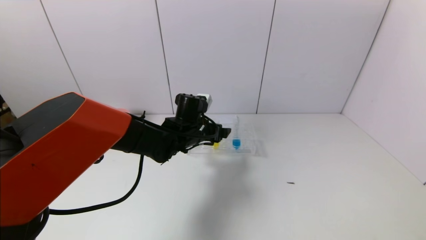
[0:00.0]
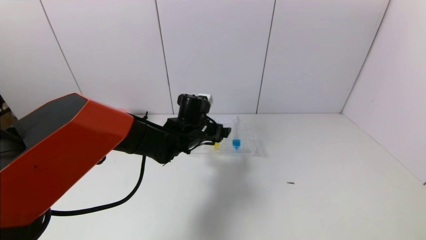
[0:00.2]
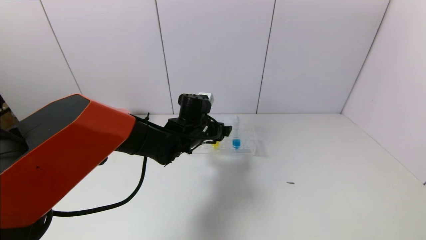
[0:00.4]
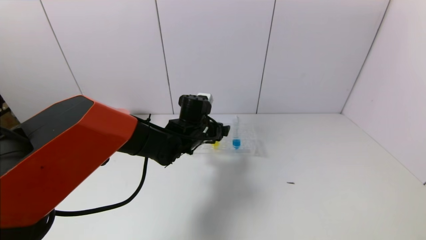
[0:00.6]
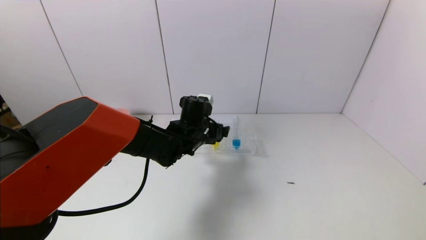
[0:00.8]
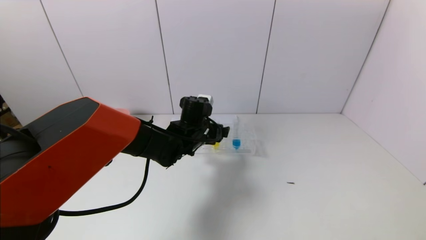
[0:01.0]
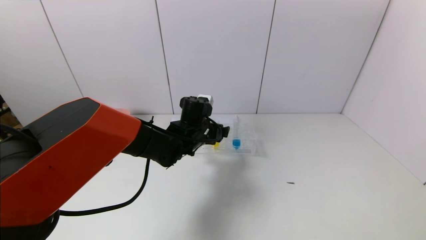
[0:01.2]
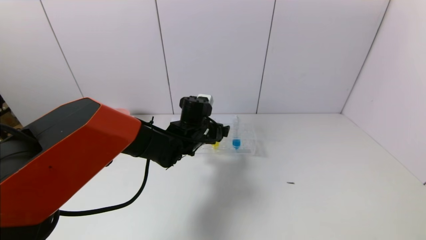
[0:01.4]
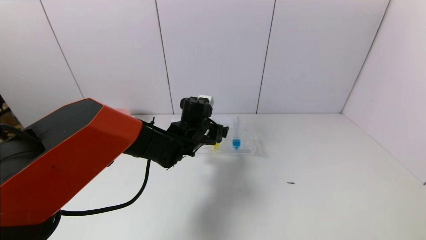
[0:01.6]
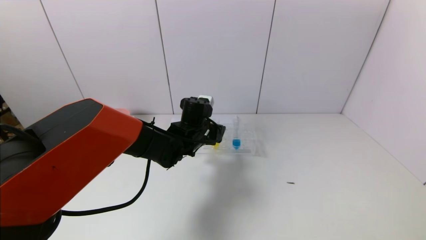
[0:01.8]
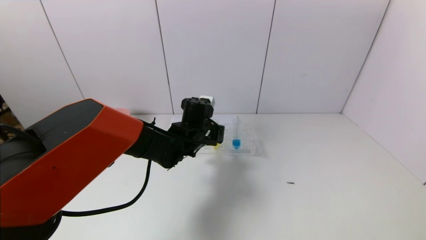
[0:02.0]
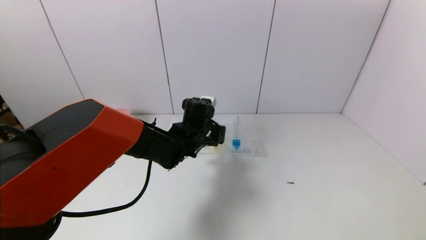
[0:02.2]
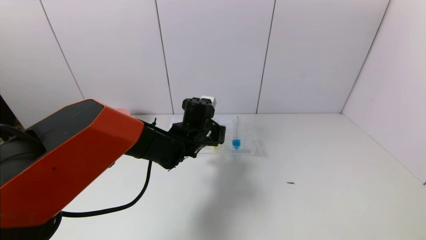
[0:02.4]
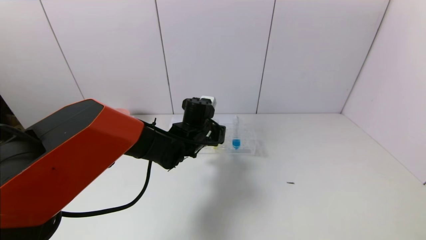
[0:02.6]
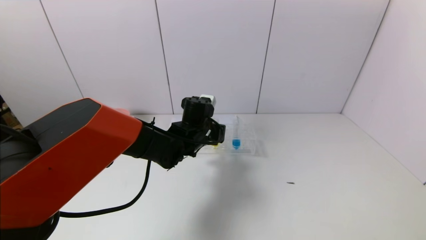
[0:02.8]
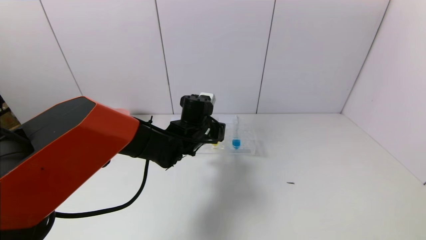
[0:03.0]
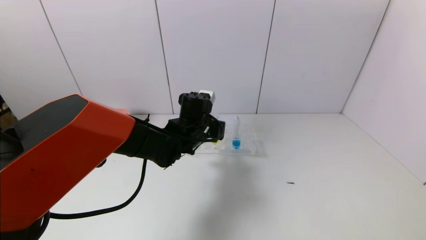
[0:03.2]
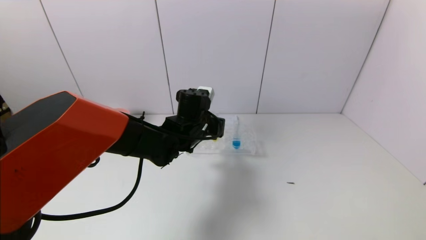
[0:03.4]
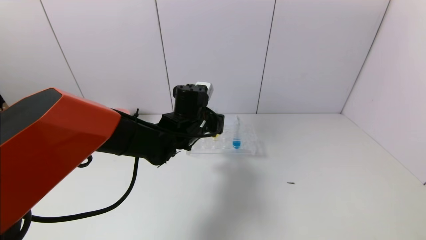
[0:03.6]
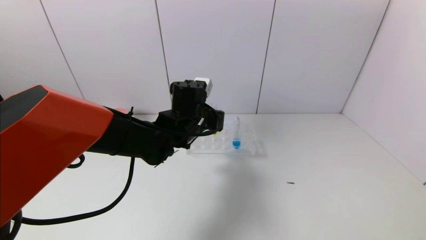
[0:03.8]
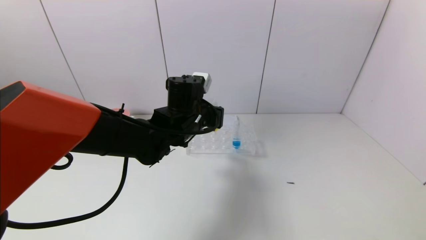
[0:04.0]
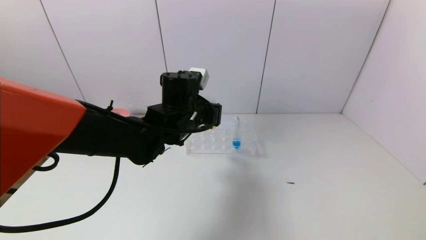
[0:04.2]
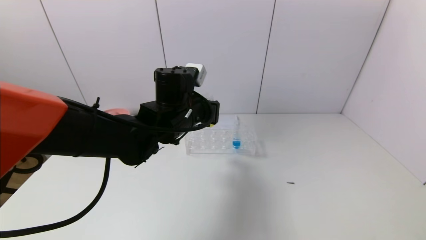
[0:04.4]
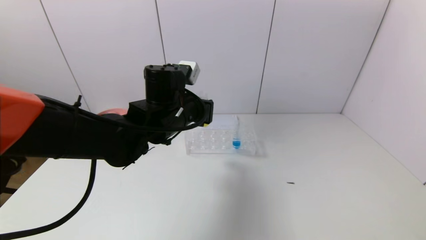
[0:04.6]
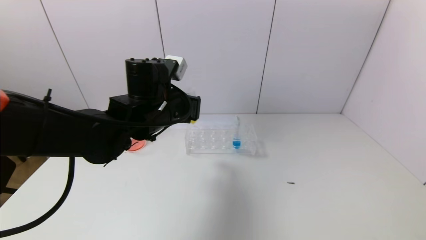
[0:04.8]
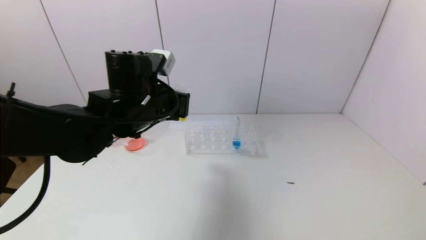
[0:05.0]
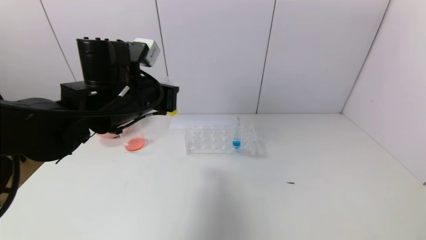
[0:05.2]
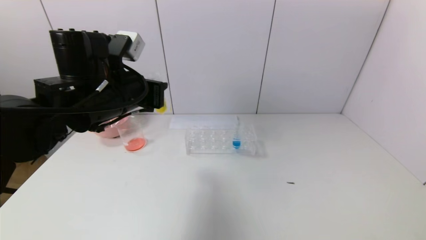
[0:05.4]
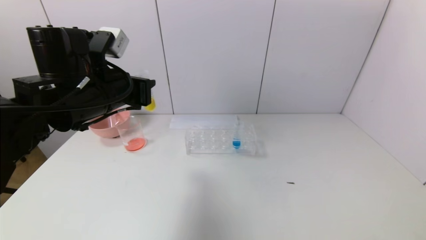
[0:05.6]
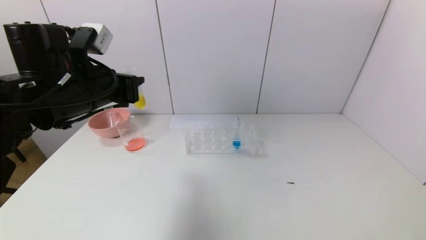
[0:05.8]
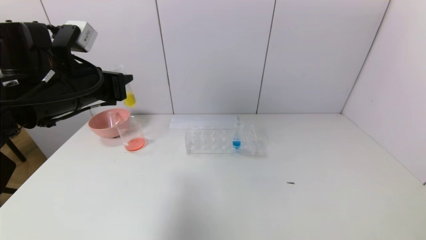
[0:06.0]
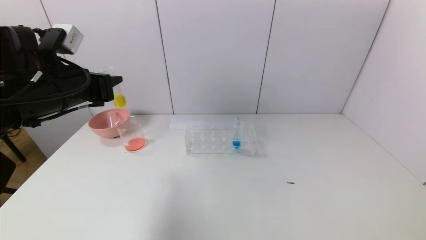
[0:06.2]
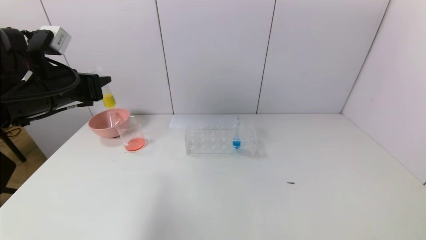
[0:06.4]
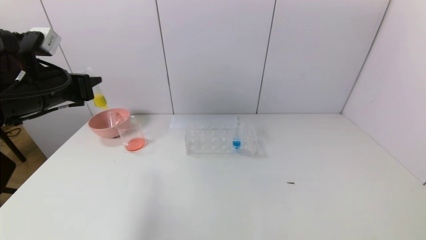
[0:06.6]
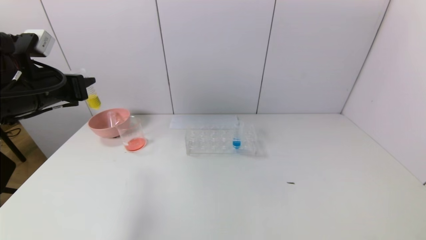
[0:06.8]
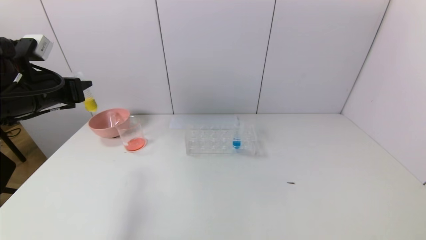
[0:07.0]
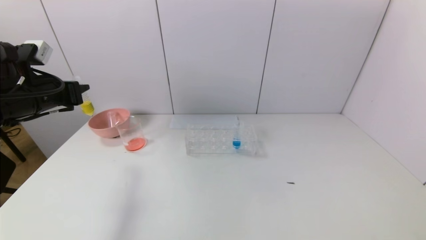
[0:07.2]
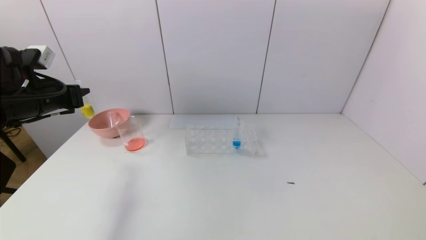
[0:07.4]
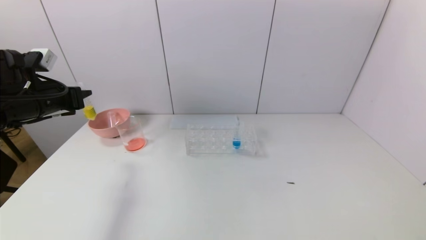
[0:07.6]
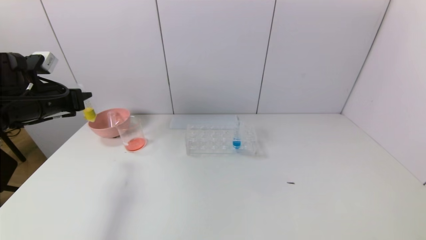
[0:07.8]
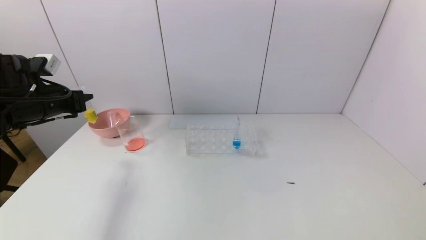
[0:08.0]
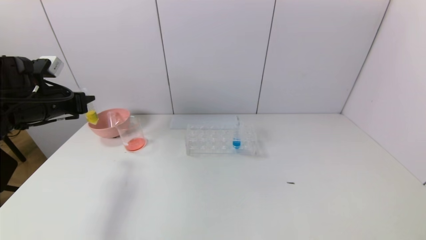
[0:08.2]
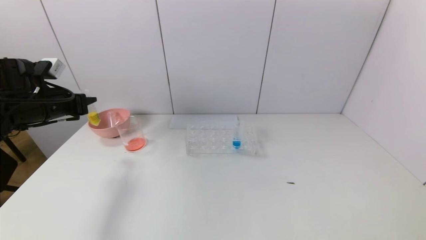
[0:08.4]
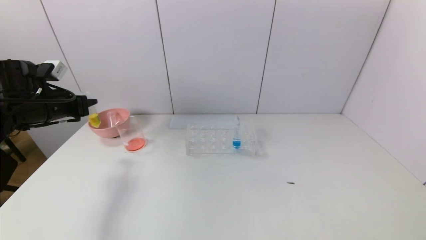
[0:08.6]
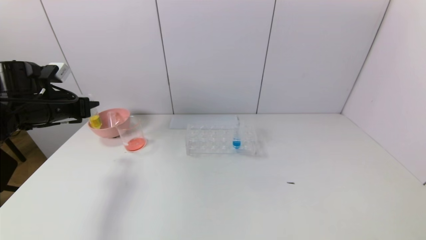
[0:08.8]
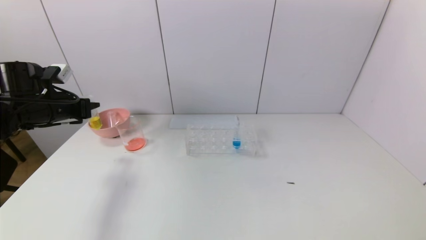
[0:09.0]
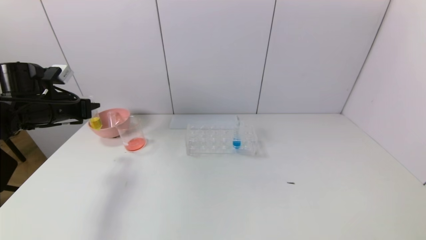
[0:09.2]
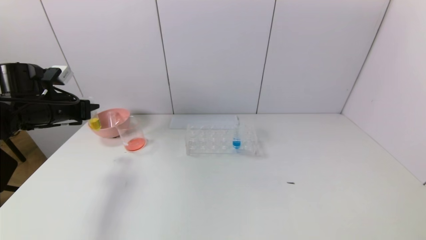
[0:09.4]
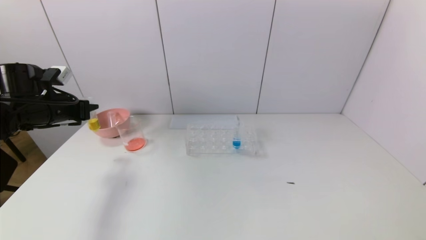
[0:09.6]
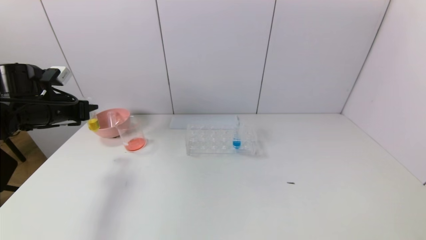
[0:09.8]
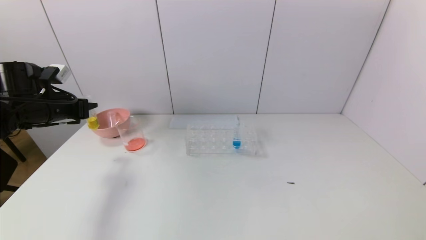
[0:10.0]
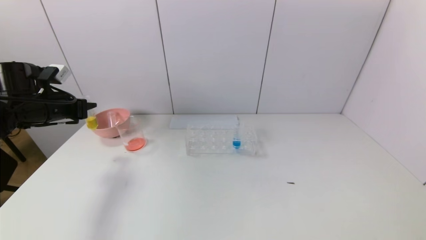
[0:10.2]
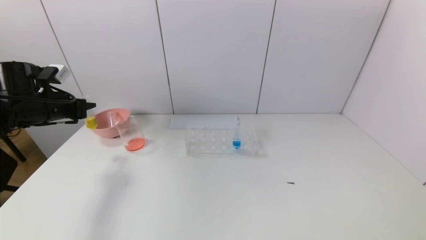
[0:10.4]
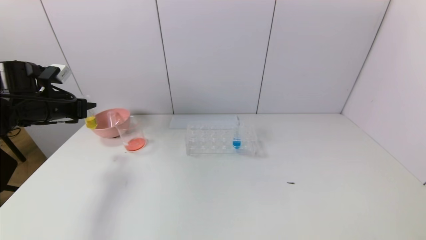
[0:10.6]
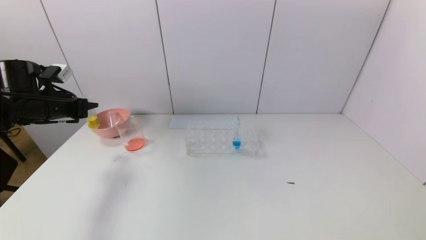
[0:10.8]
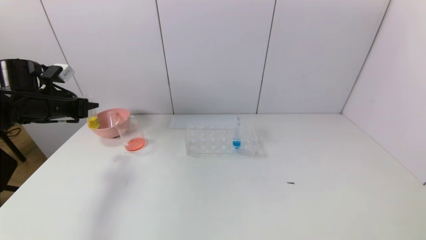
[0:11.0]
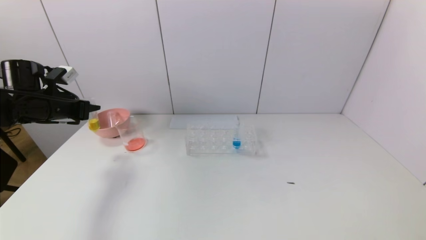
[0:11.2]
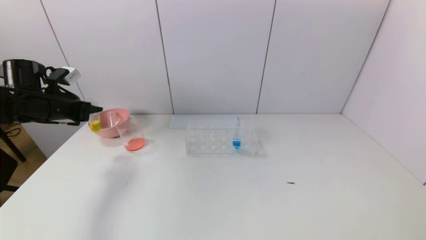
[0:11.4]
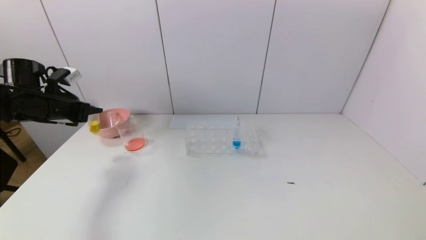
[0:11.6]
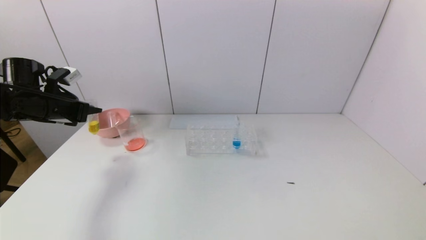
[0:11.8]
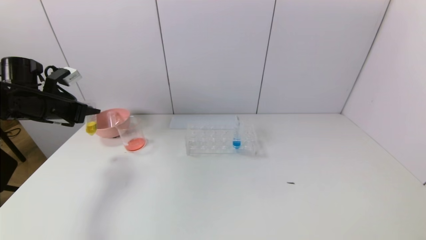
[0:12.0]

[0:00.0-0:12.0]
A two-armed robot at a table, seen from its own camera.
Task of the whole recording: pick up the test tube with yellow pigment and the test tube with red pigment by grippers and pour them into the beaker.
Step, 0:00.0 to 0:02.4: Grasp the yellow reagent with the left gripper.
0:00.0 to 0:01.6: The grippers stay close to where they were, moving slightly.
0:01.6 to 0:03.0: The left gripper closes.
0:03.0 to 0:04.4: The left gripper travels upward by some 10 cm.
0:04.4 to 0:06.0: The left gripper travels to the left and upward by about 20 cm.
0:06.0 to 0:07.6: The left gripper travels to the left by approximately 10 cm.
0:07.6 to 0:10.4: The grippers move only a little.
0:10.4 to 0:12.0: The grippers move only a little.

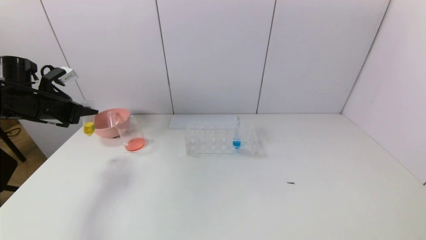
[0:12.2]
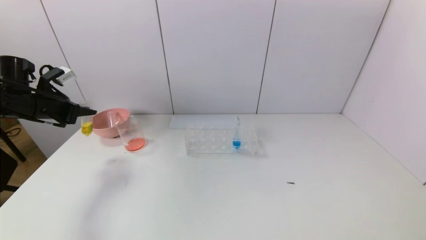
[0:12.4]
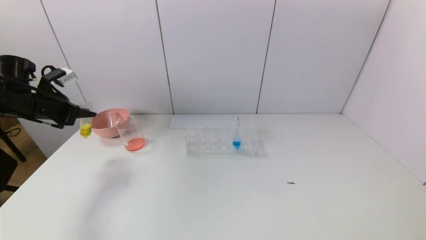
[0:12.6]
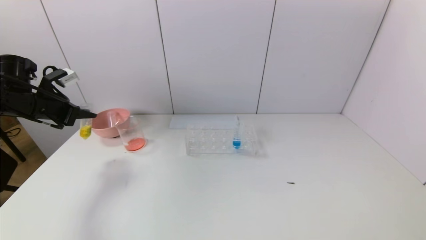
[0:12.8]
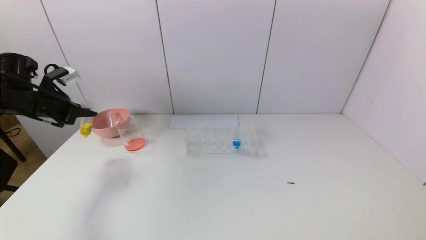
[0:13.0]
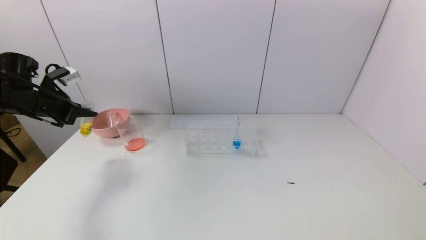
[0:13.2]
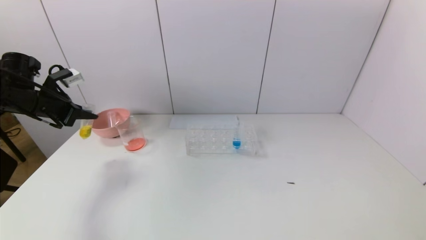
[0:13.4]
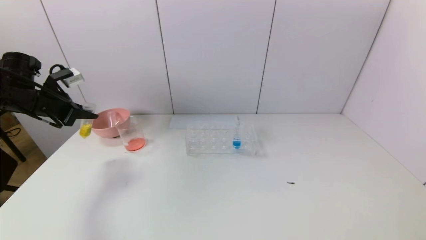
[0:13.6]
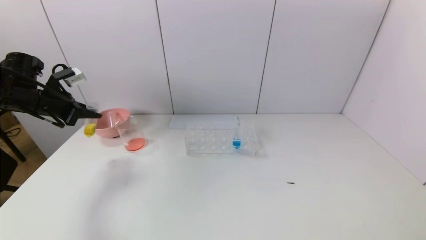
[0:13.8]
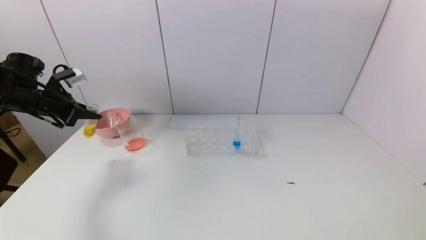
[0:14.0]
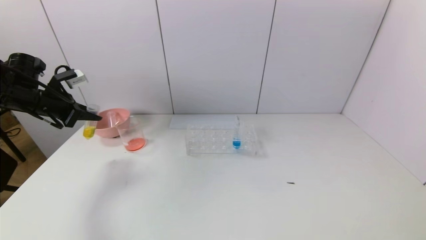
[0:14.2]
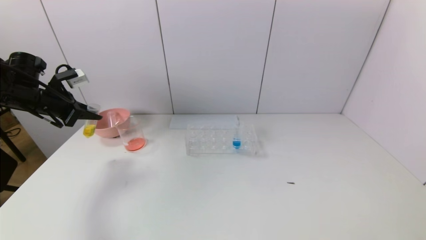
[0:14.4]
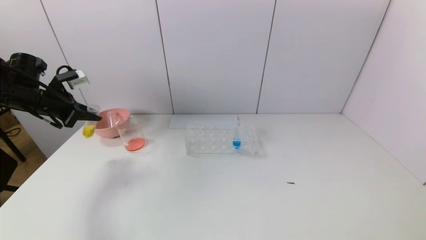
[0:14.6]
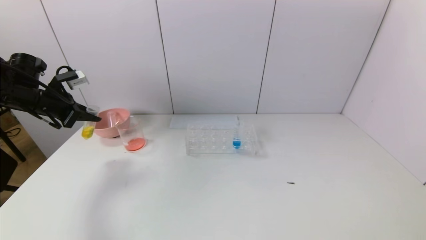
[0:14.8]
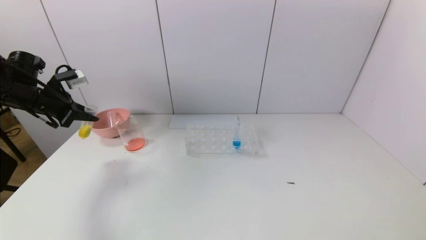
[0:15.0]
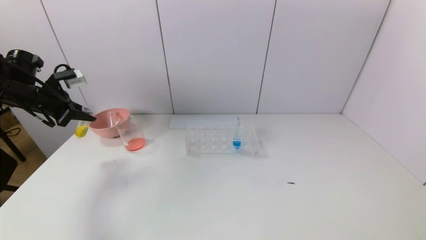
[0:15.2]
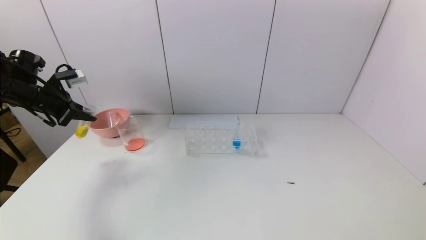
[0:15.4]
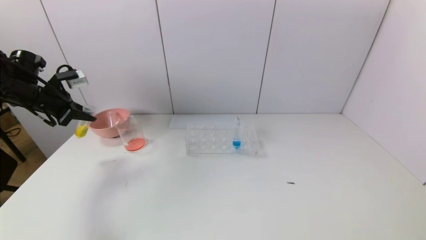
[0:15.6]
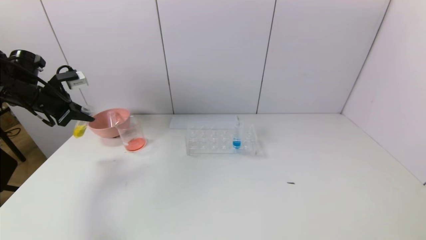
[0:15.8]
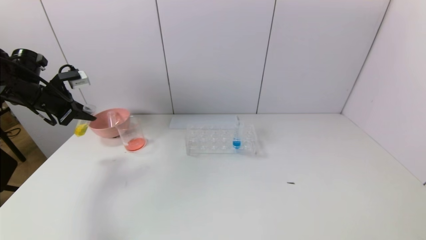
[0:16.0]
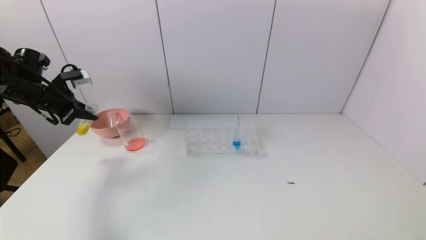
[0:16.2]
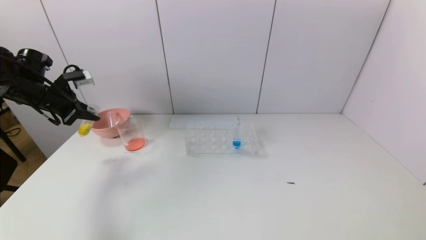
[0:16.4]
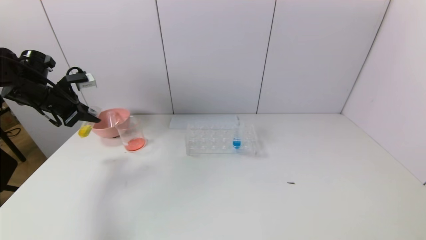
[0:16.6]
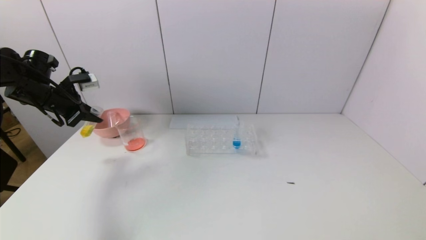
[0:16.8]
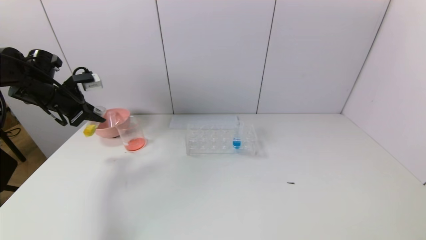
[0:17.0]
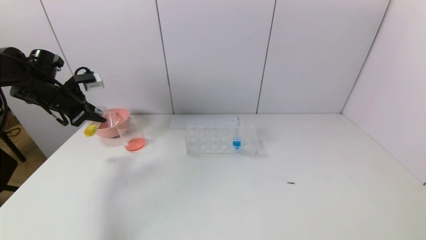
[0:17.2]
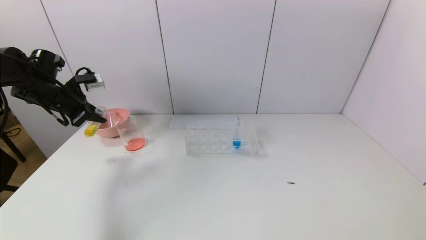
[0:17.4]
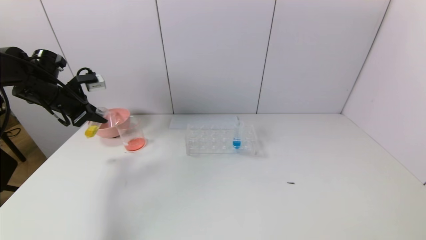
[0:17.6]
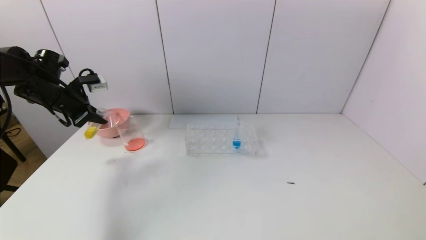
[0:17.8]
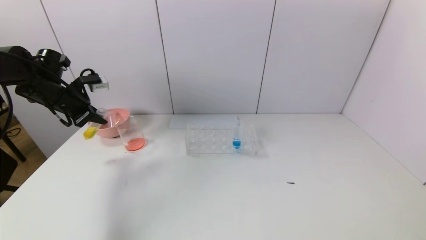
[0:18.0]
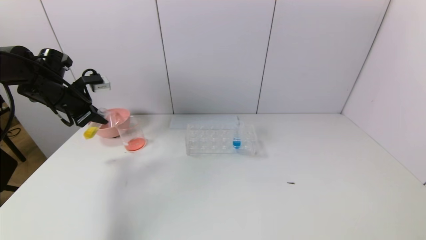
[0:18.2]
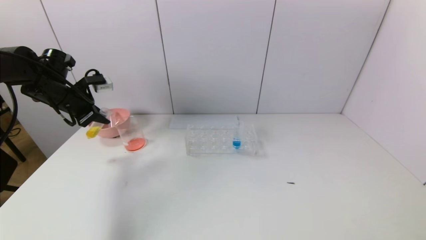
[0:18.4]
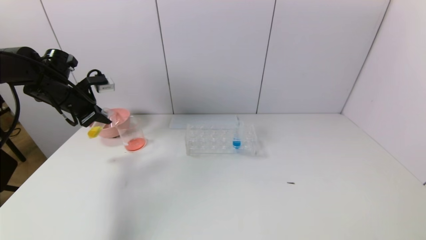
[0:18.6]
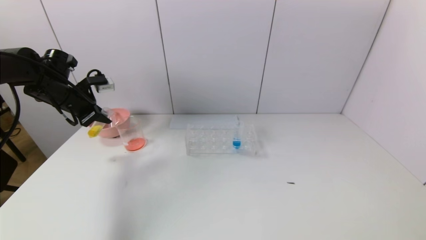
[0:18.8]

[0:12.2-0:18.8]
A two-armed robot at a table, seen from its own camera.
Task of the whole recording: pick up the test tube with yellow pigment and the test tube with red pigment by grippers and pour them into the beaker.
0:12.2 to 0:13.8: There are only small adjustments of the grippers.
0:13.8 to 0:18.8: There are only small adjustments of the grippers.
